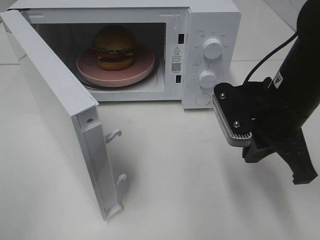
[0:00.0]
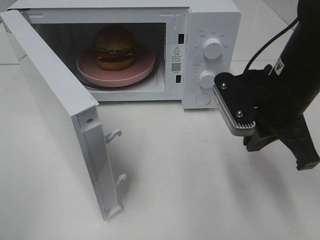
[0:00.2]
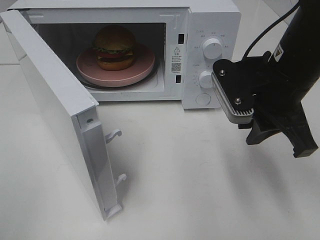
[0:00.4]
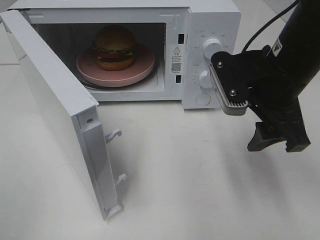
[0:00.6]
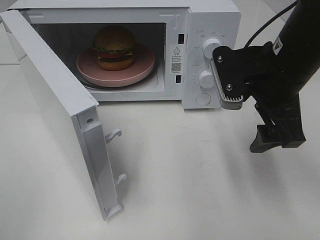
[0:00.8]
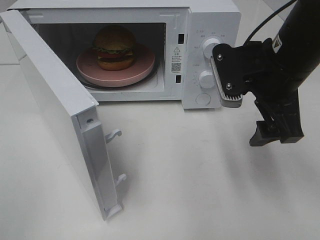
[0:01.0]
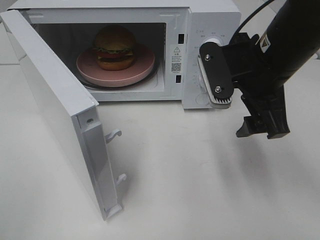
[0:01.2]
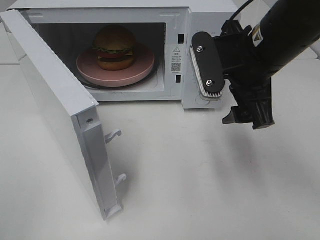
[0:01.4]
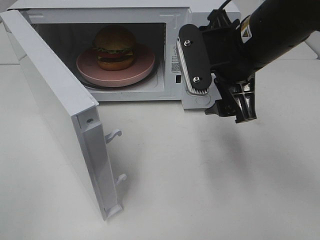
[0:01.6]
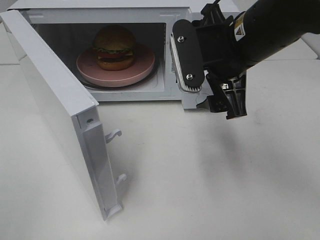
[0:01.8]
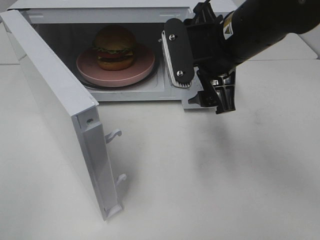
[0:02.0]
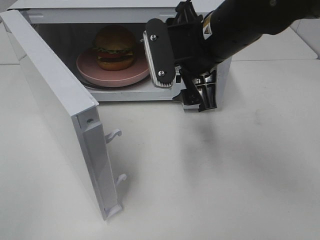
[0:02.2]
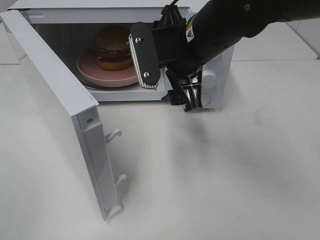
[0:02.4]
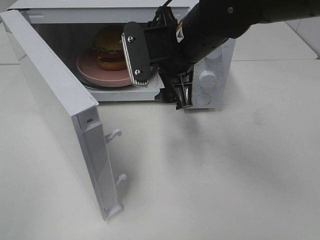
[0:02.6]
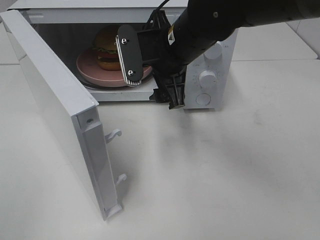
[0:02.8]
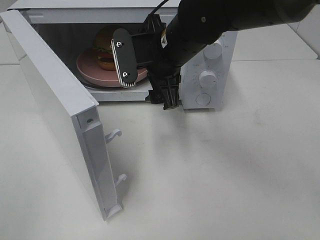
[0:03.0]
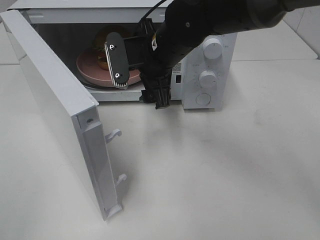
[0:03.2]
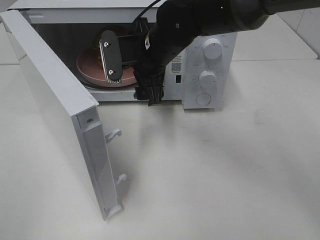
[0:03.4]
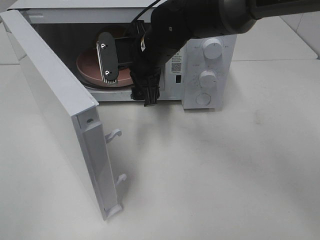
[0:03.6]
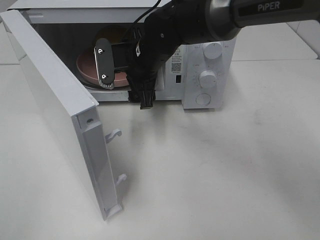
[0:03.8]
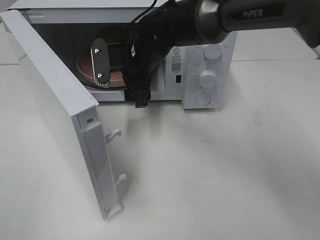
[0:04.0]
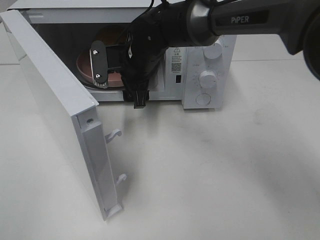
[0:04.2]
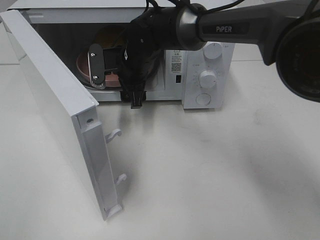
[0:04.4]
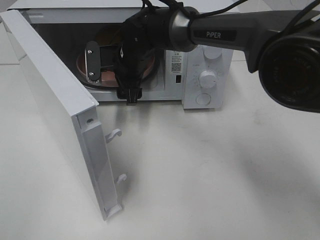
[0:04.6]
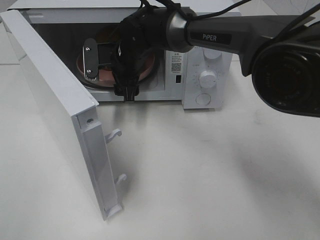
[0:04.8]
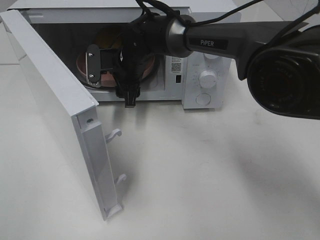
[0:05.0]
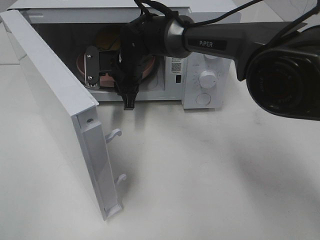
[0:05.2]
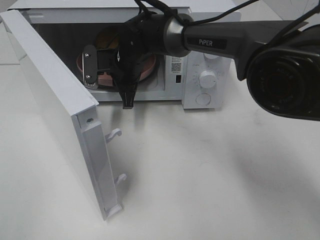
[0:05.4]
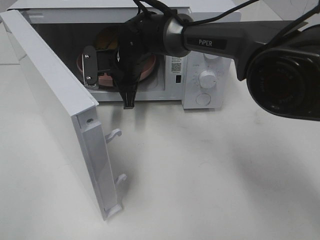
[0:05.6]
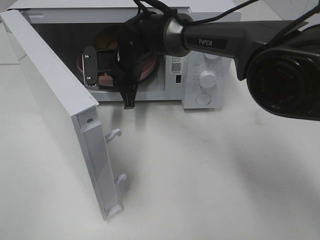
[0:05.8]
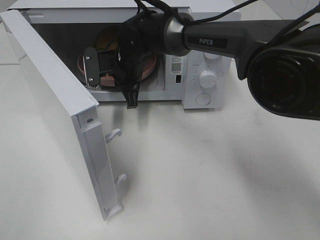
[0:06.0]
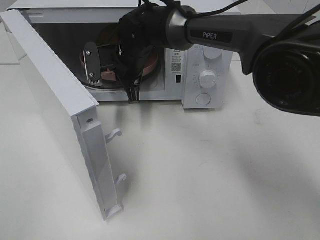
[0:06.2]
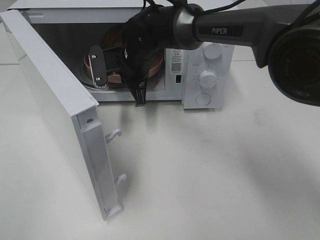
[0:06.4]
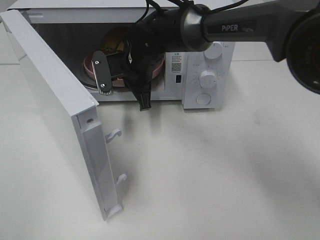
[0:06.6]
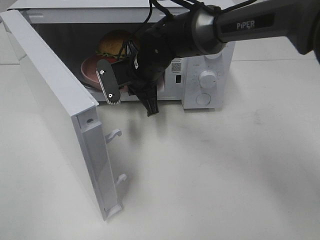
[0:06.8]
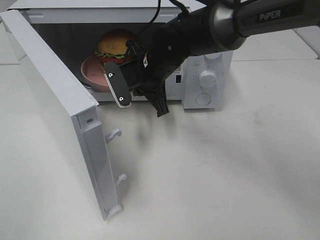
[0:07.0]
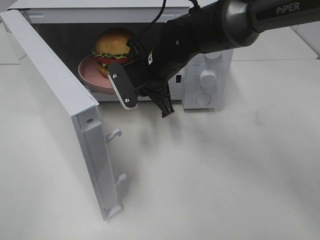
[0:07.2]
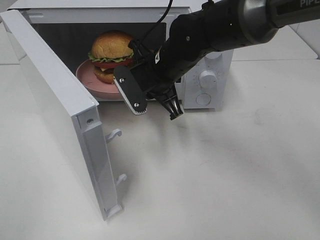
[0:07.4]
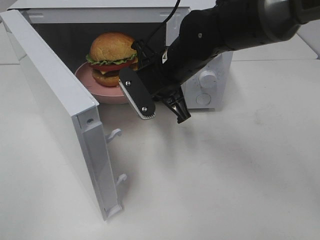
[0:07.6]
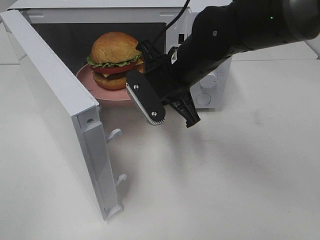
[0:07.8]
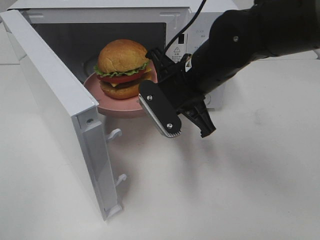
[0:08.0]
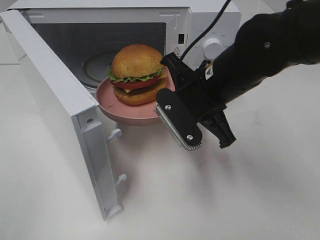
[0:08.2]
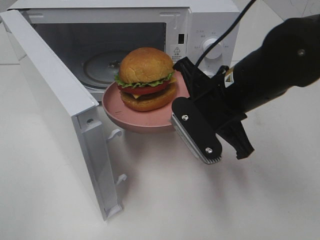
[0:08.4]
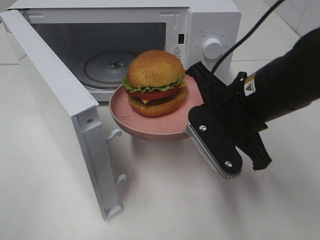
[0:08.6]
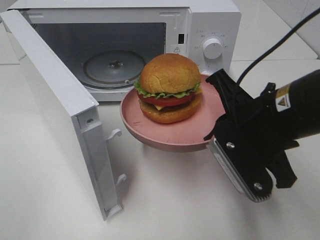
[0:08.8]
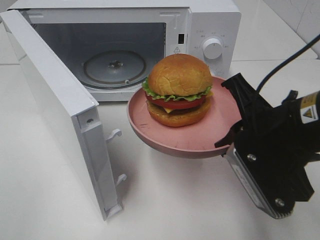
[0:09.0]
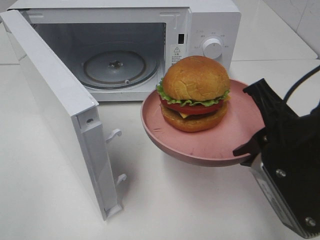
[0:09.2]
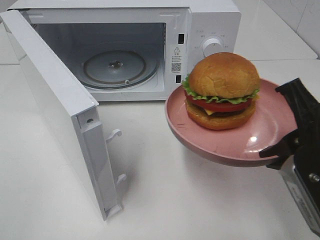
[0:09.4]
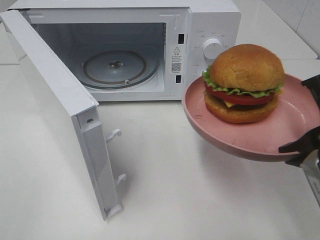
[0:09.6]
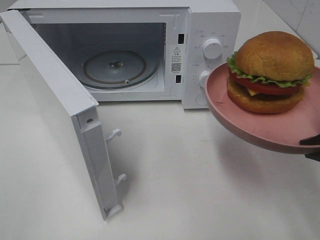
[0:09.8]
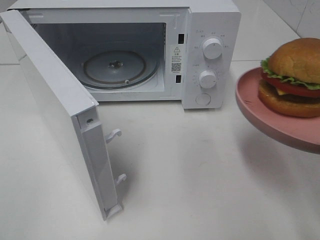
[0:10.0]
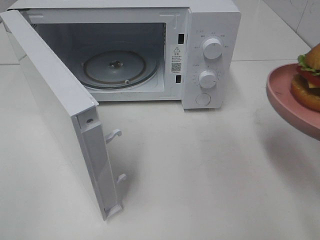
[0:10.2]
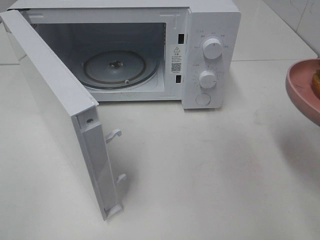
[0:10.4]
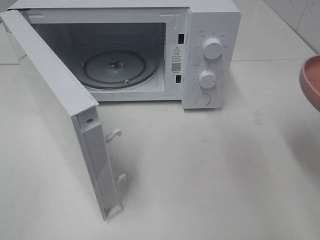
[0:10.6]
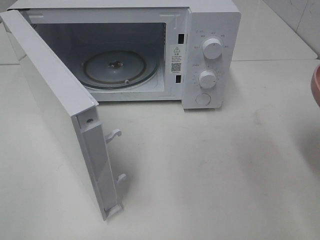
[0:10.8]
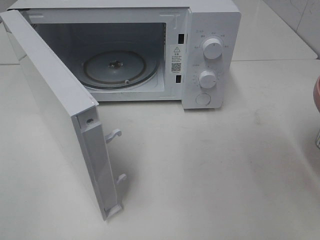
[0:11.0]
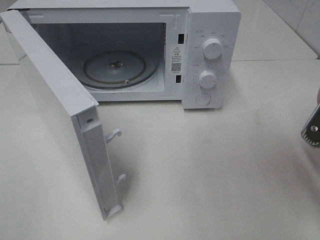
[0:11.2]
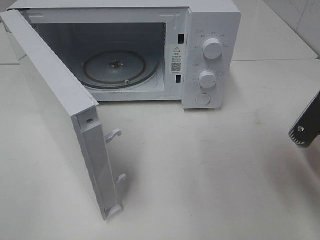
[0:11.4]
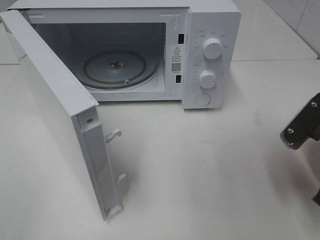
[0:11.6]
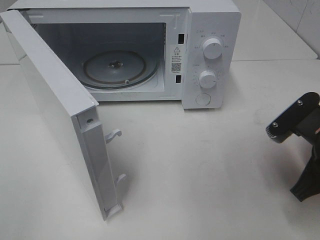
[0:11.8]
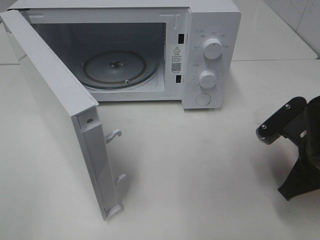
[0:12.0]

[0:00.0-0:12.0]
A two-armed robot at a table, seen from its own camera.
Task of the whole recording: Heat the burger.
Step, 0:00.0 to 0:05.6: Right hand: grab the plate with the hamburger.
0:00.0 to 0:01.6: The right gripper travels upward by approximately 5 cm, and opens.
0:01.6 to 0:03.0: The right gripper heads to the left and forward, covering some 10 cm.
0:03.0 to 0:04.4: The right gripper travels forward, downward and to the left by roughly 10 cm.
0:04.4 to 0:06.0: The right gripper closes.
0:06.0 to 0:07.6: The right gripper travels backward and to the right by some 15 cm.
0:07.6 to 0:09.0: The right gripper heads backward and to the right, covering roughly 20 cm.
0:09.0 to 0:10.4: The right gripper travels to the right and backward by approximately 10 cm.
0:10.4 to 0:12.0: The right gripper goes some 15 cm downward and forward.

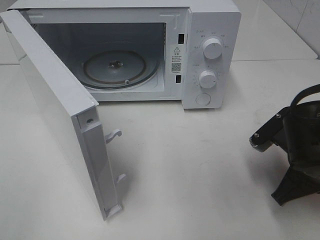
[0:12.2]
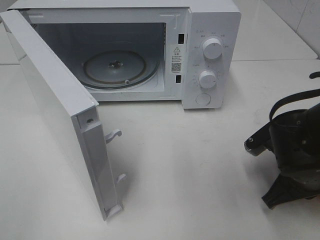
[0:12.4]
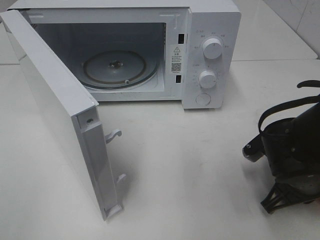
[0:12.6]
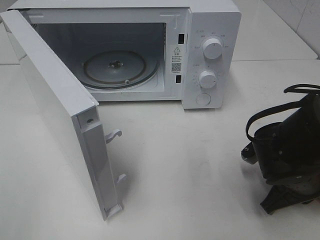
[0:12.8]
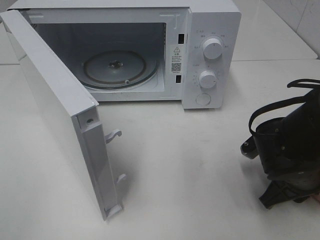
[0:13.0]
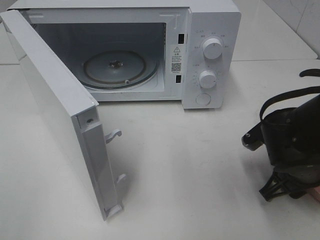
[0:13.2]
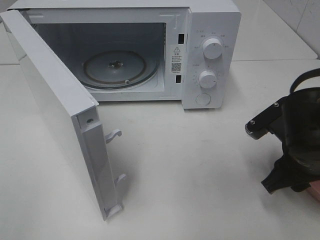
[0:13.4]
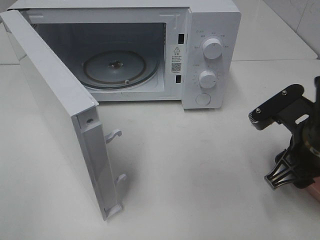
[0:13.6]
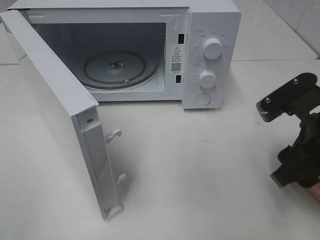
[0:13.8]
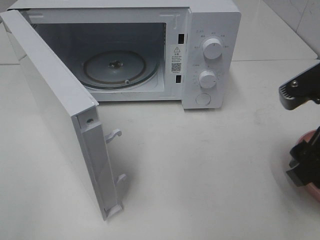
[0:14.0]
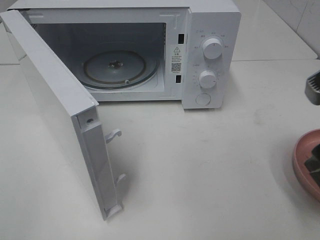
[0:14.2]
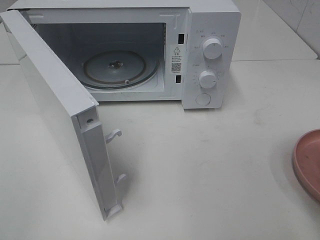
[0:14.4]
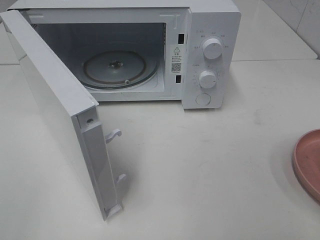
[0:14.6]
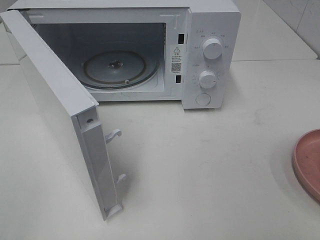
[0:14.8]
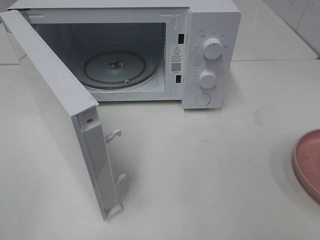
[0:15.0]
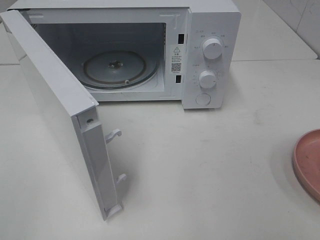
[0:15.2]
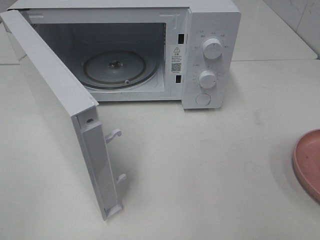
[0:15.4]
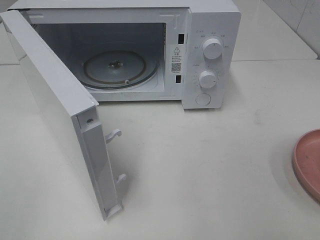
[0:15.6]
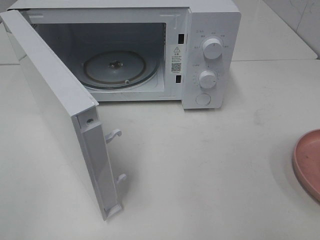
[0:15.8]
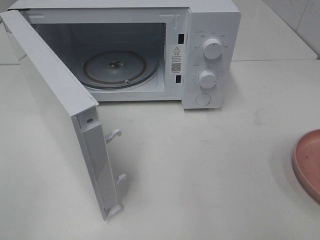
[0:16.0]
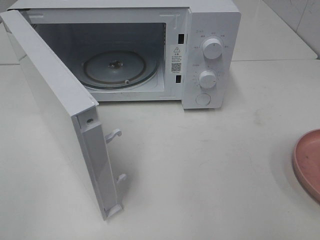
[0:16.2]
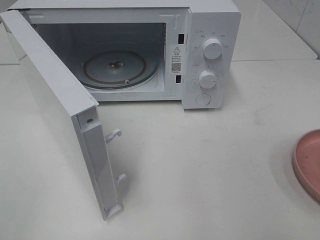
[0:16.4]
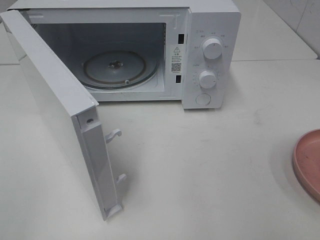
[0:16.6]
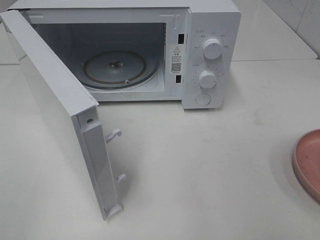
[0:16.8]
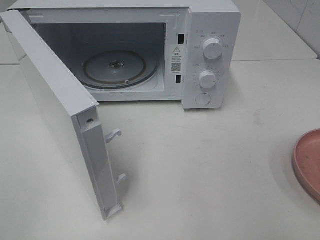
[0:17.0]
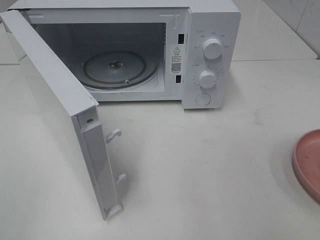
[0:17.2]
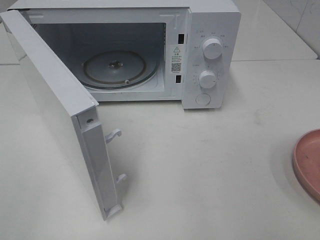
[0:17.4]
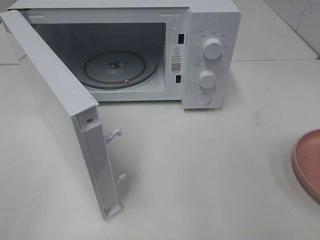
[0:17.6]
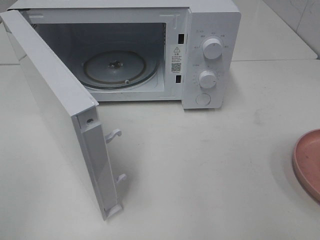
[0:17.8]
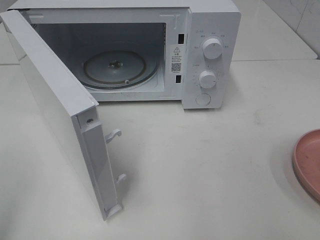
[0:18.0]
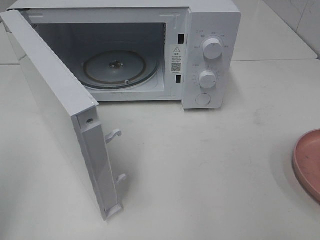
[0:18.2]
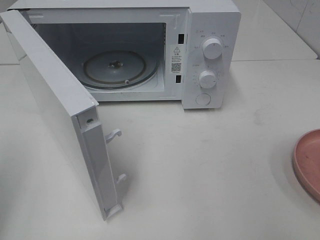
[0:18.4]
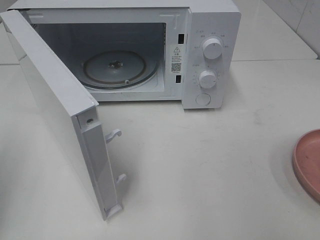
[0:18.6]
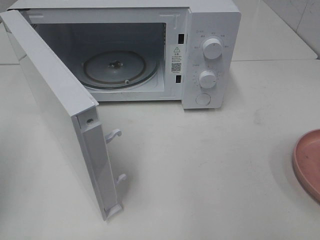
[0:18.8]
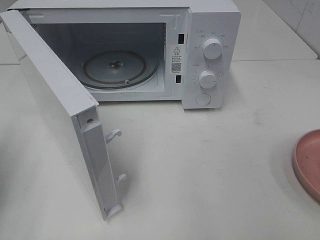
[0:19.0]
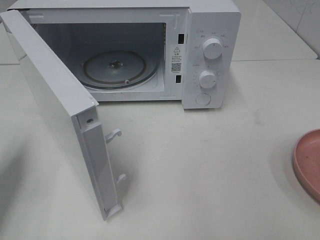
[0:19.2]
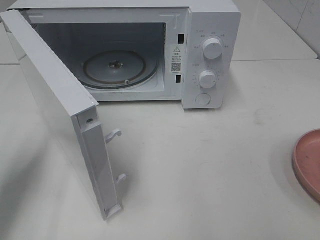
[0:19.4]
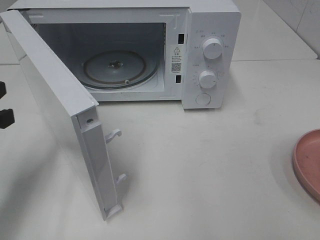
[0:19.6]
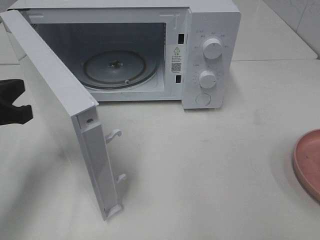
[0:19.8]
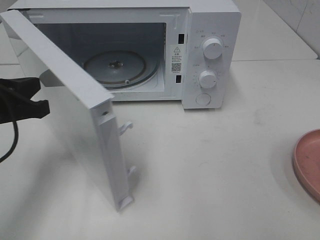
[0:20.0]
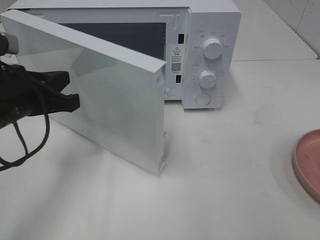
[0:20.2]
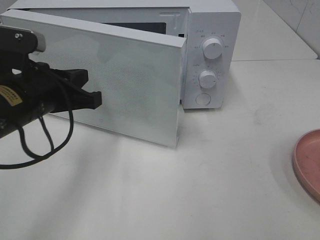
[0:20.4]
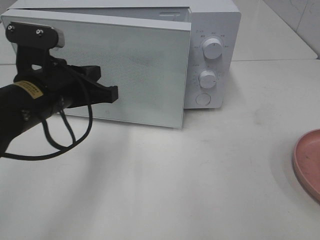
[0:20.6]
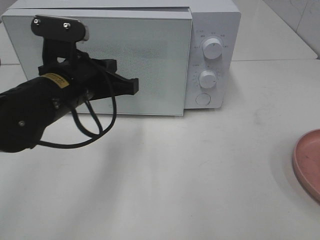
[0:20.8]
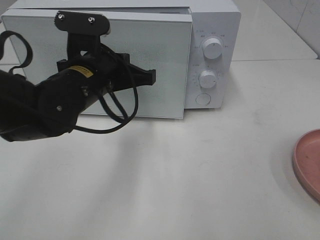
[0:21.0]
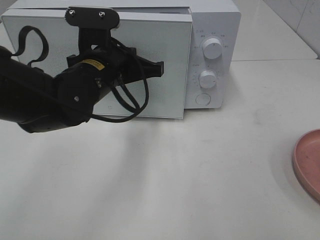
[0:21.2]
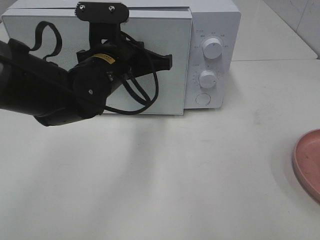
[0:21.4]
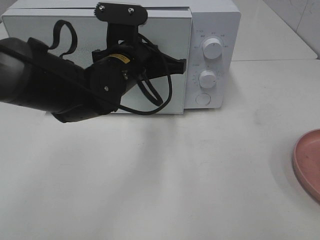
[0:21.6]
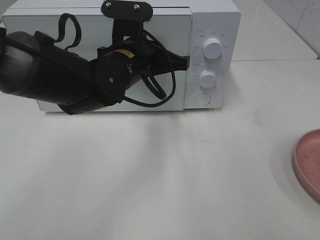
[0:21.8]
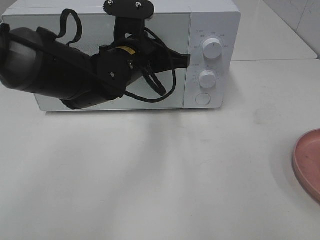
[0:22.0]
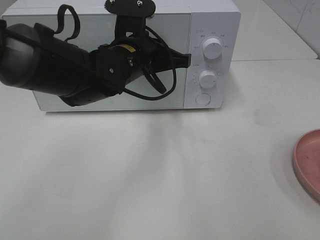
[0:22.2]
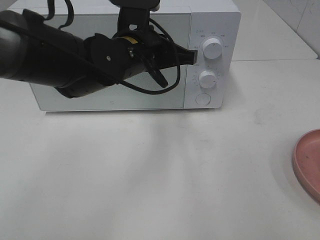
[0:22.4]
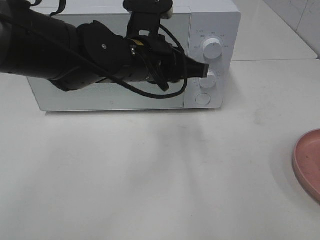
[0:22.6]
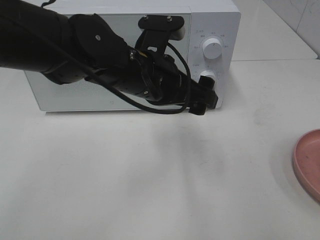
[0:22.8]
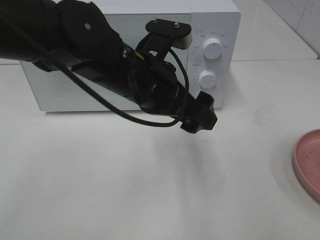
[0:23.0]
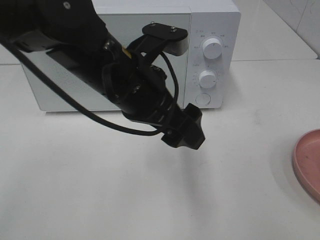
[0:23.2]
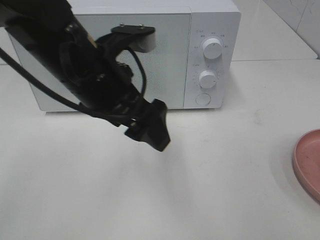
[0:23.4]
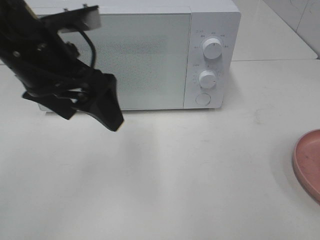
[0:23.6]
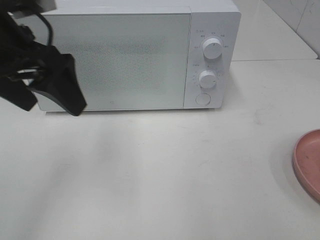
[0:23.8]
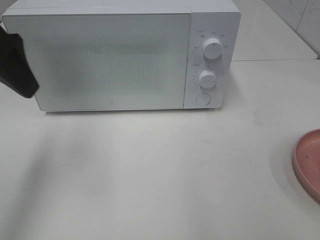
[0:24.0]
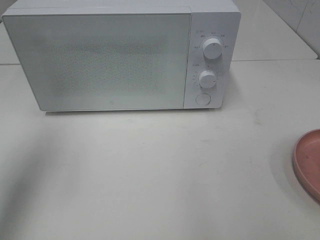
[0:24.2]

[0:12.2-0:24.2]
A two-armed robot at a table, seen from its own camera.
Task of the whole recording: Heat the burger.
Step, 0:13.8 to 0:22.6: Left hand: close the microwave door.
0:12.2 to 0:13.8: The right gripper travels upward by some 10 cm, and opens.
0:13.8 to 0:15.2: The right gripper goes approximately 20 cm backward, to the right and upward.
0:18.2 to 0:19.8: The left gripper heads forward, downward and to the right, covering roughly 20 cm.
0:19.8 to 0:21.2: The left gripper goes approximately 20 cm to the right and forward.
0:21.2 to 0:22.6: The left gripper goes about 5 cm to the right, and opens its fingers.
0:22.6 to 0:24.2: The left gripper goes approximately 30 cm to the left and upward, and opens.
